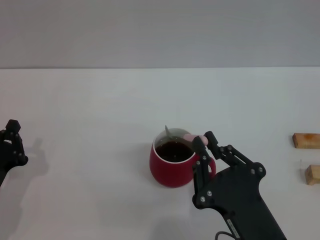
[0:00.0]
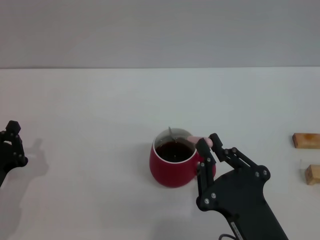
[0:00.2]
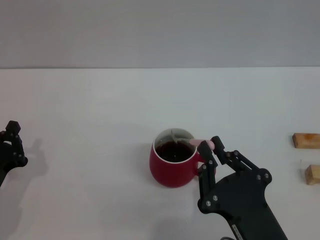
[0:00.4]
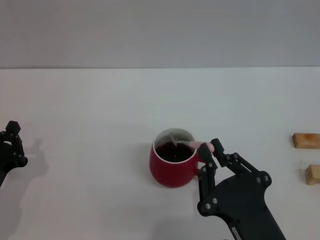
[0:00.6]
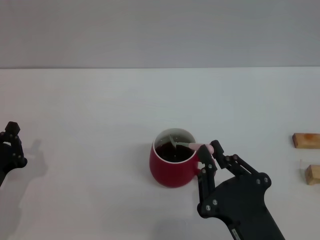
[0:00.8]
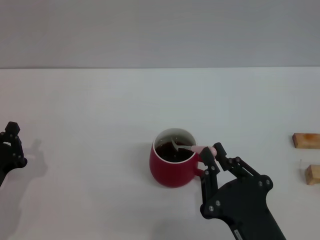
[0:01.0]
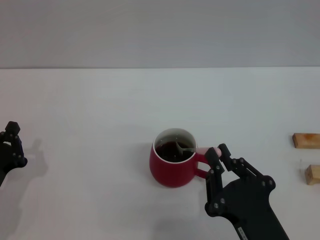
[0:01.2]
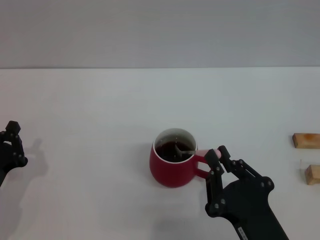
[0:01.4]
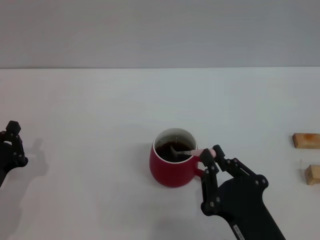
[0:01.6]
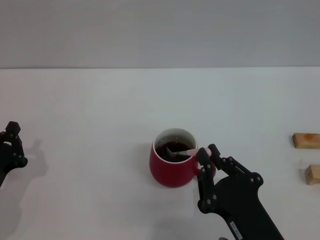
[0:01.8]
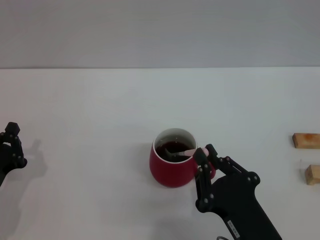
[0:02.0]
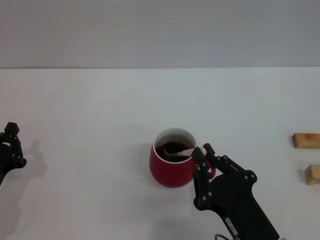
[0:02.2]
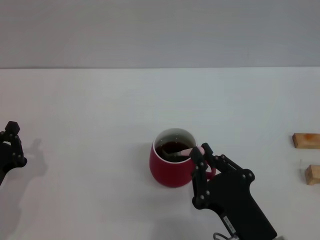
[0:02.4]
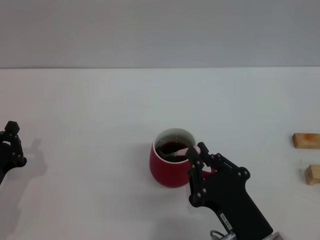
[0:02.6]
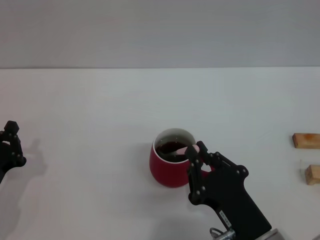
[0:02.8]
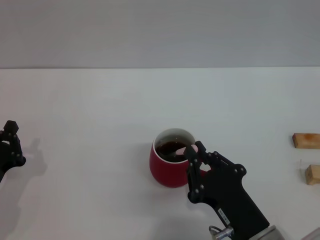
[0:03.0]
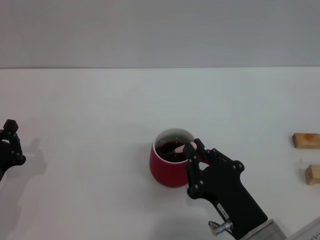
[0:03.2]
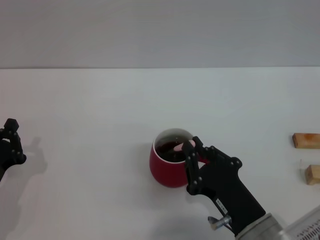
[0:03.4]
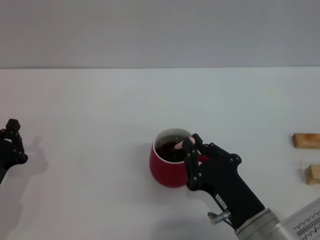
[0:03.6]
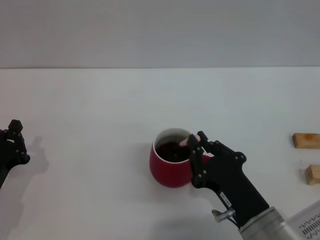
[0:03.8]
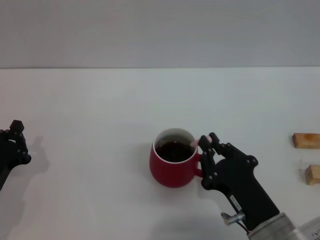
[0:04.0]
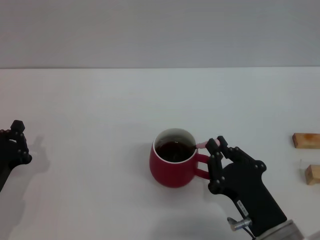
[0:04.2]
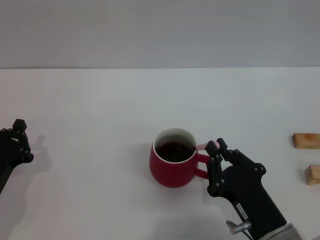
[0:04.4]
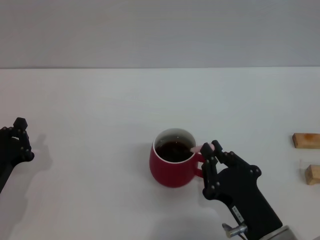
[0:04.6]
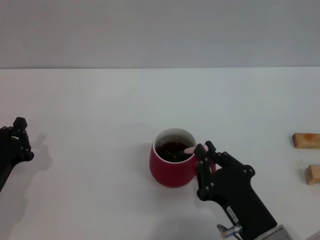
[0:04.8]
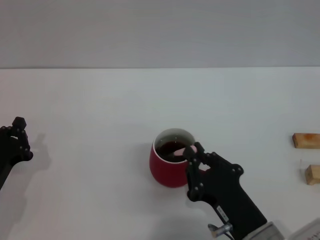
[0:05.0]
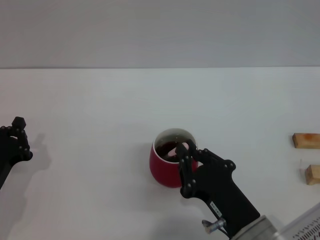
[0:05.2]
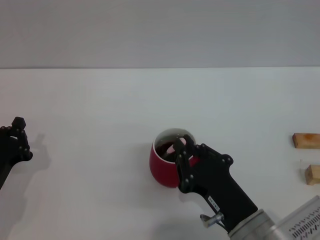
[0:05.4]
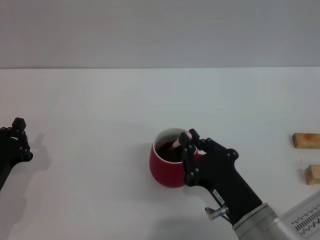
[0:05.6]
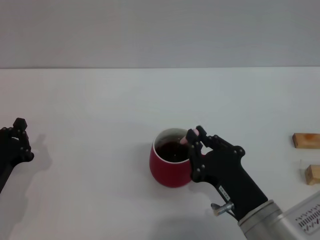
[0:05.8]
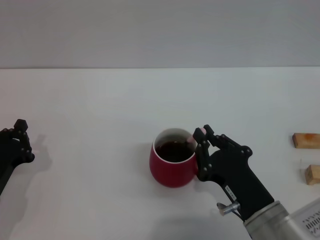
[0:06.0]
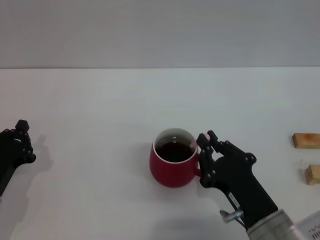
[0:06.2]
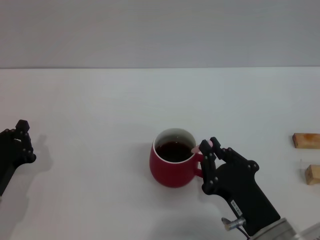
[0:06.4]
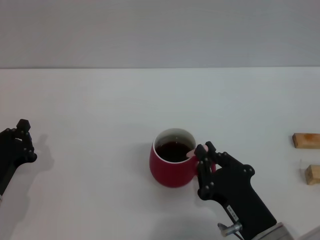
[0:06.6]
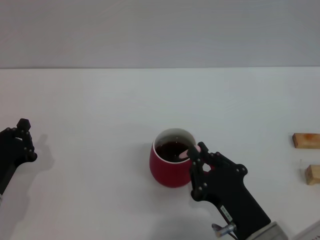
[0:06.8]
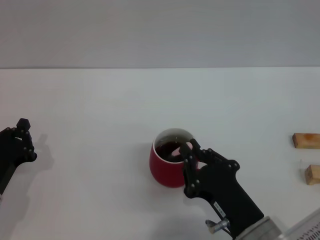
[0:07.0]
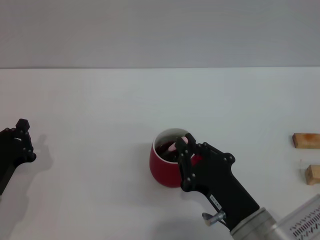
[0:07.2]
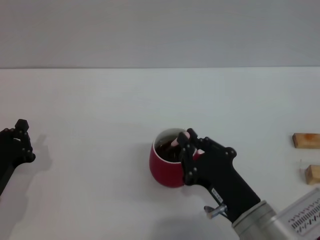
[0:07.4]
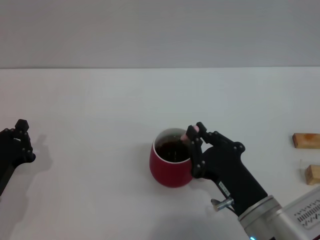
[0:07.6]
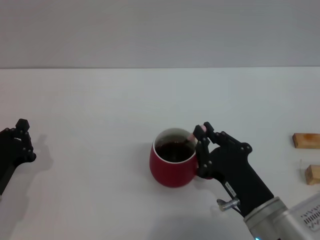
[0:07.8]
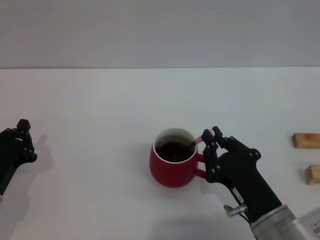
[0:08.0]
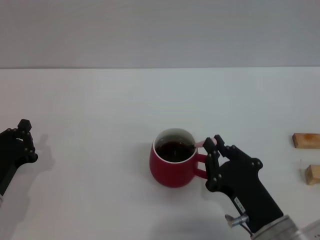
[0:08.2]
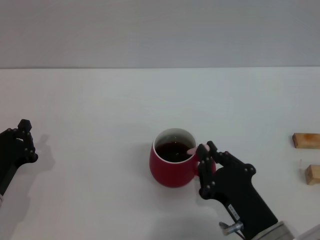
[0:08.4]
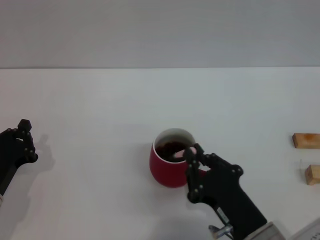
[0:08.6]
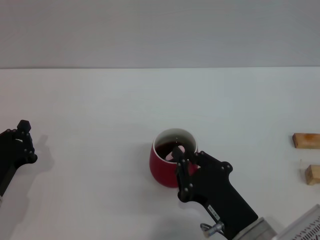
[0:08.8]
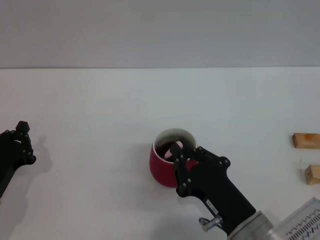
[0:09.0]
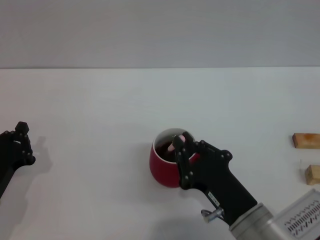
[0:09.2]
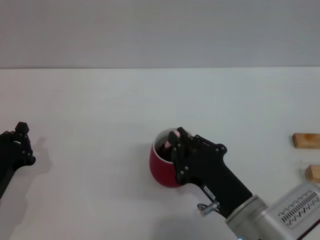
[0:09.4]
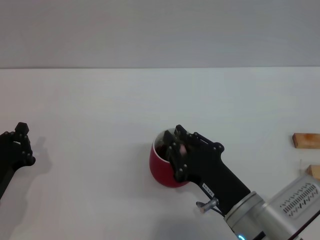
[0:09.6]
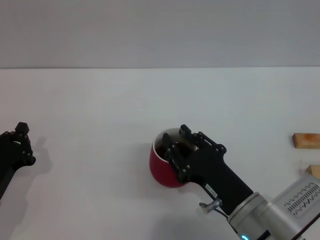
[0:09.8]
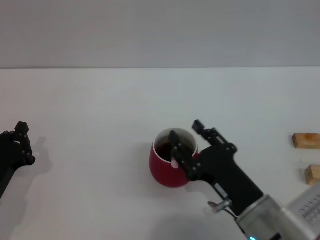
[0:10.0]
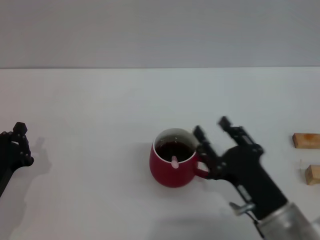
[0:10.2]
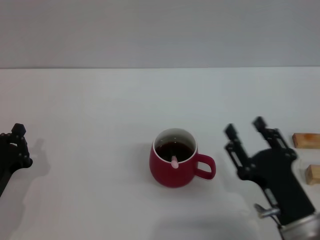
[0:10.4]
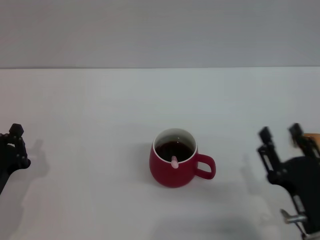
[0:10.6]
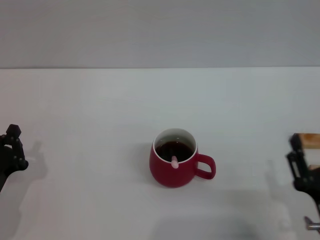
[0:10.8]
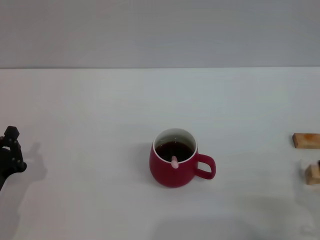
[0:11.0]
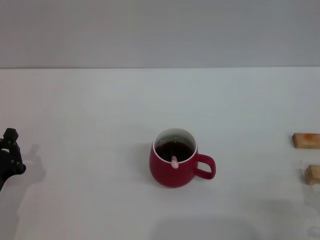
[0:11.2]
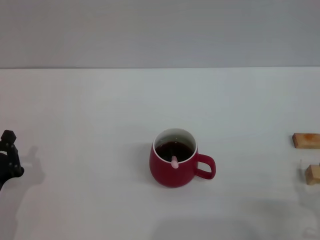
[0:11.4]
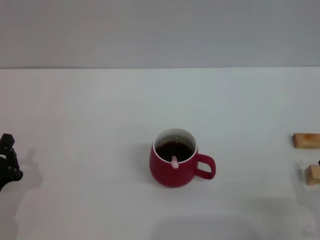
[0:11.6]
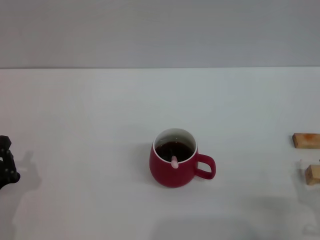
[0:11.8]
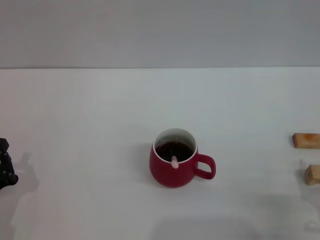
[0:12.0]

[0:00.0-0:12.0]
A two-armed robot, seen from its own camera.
Task of the whole recording: Move the red cup to the center, lift the pink spoon, stir it three times in the cup, and put the spoon into the cup.
Step, 0:00.0 to 0:09.8: Stir the coffee in the cup with the right gripper.
0:00.0 to 0:03.0: There are only small adjustments of the grippers.
0:03.0 to 0:09.0: The grippers move only a little.
0:09.0 to 0:10.4: The right gripper goes roughly 5 cm to the right, and opens its fingers.
0:10.4 to 0:12.0: The right gripper is displaced to the right by about 5 cm.

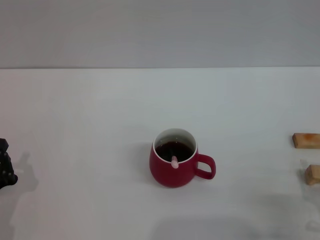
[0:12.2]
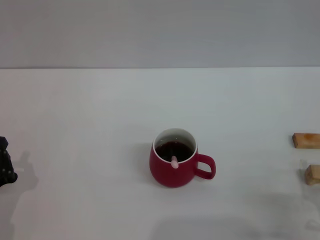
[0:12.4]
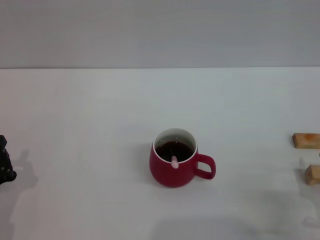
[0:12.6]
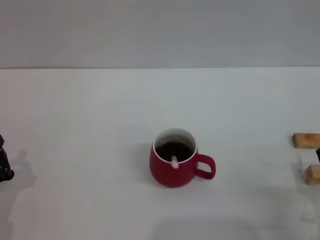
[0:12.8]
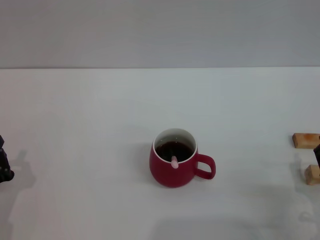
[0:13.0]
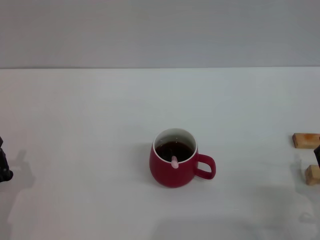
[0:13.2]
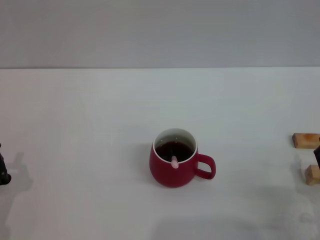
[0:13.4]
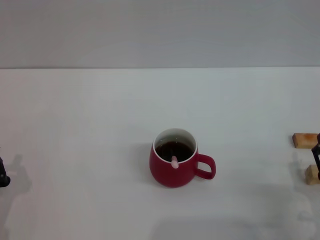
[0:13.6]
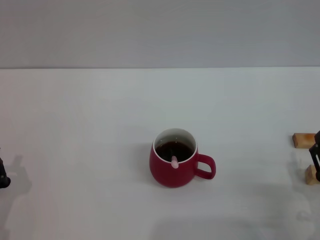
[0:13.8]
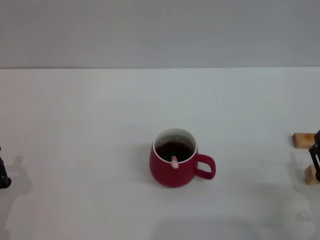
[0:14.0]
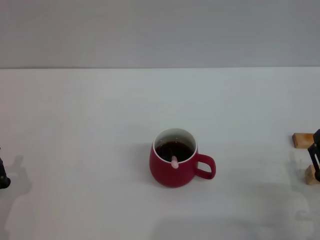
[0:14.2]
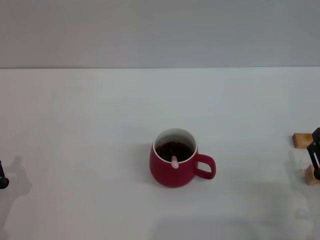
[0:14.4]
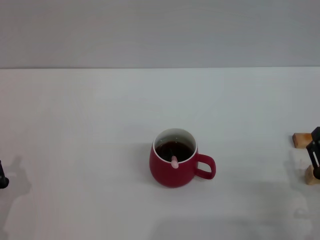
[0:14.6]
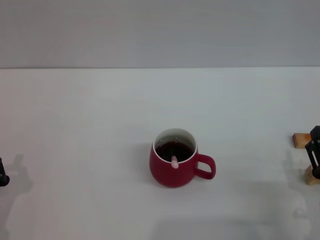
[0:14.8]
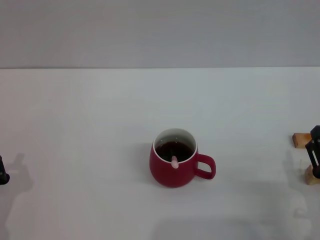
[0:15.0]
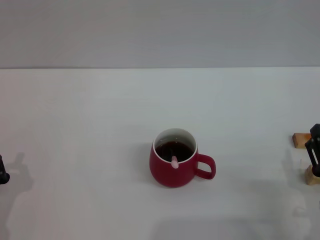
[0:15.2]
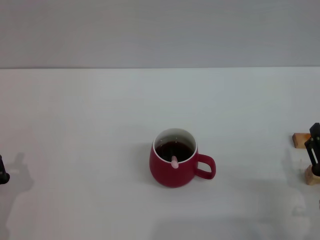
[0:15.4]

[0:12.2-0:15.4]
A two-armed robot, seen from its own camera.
Task of the whole recording: Move the red cup to the center, lift the pink spoon, stir it three times in the cup, and put the spoon into the cup.
0:12.2 to 0:13.8: The grippers make only small movements.
0:13.8 to 0:15.4: Both grippers stay put.
